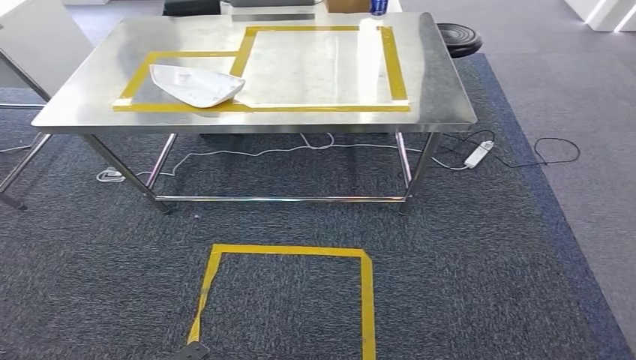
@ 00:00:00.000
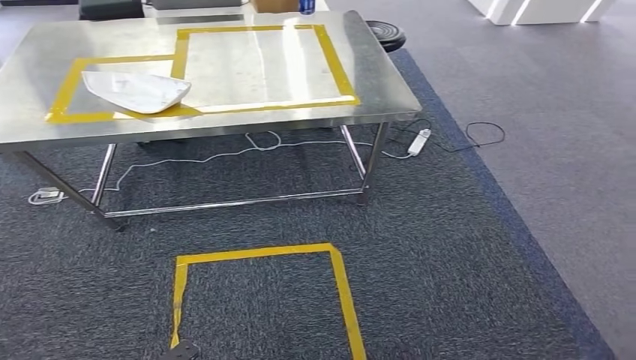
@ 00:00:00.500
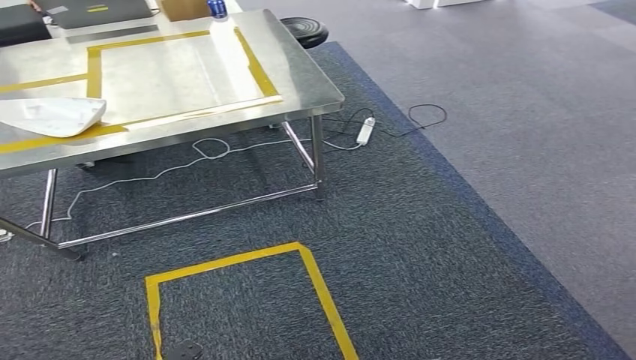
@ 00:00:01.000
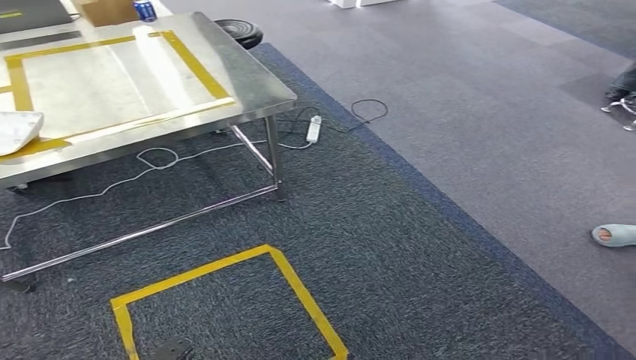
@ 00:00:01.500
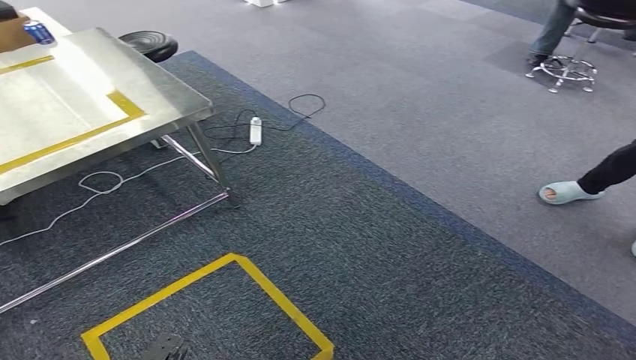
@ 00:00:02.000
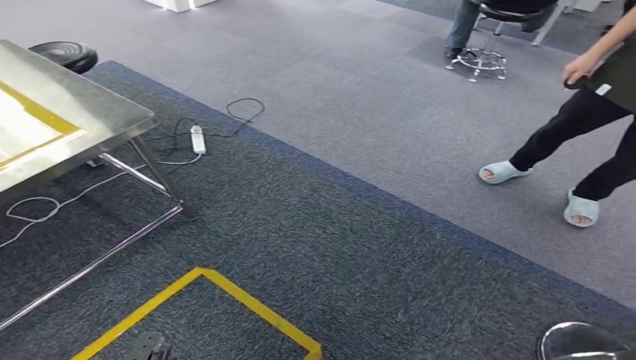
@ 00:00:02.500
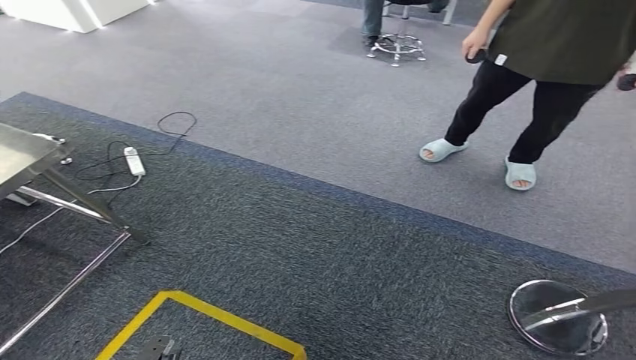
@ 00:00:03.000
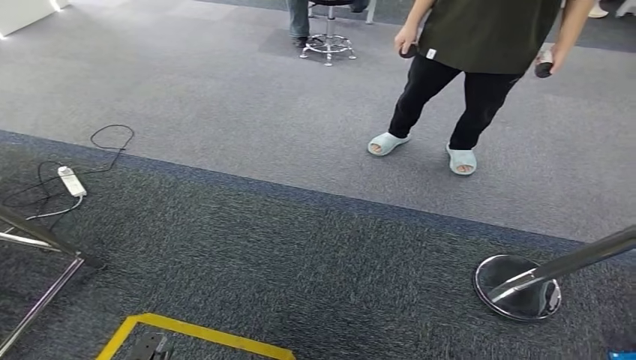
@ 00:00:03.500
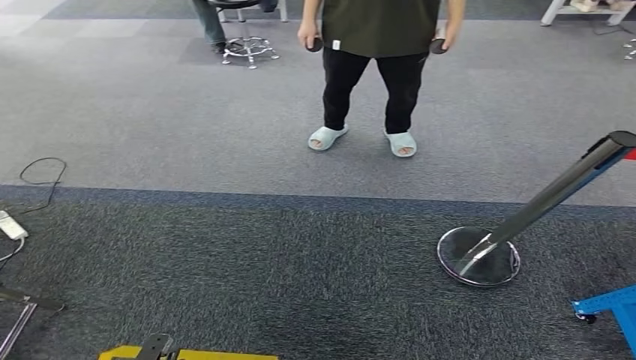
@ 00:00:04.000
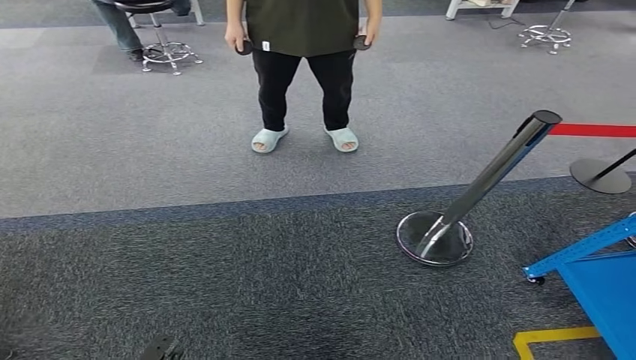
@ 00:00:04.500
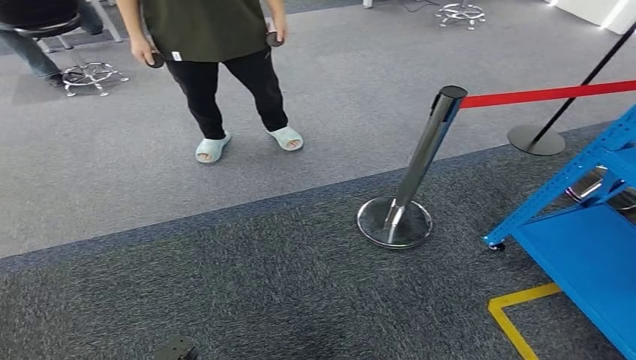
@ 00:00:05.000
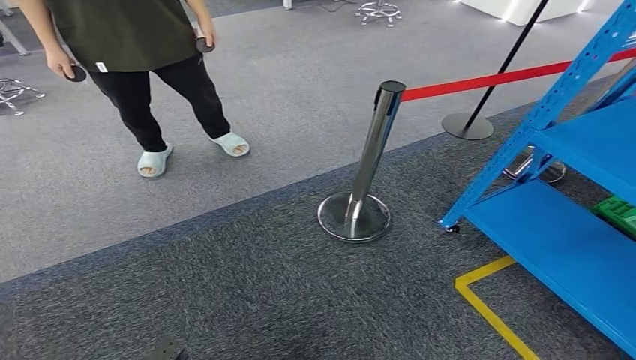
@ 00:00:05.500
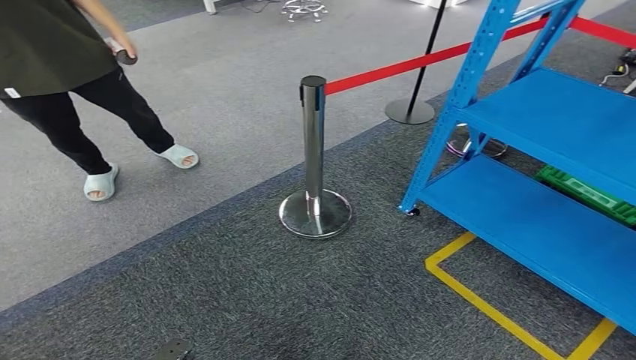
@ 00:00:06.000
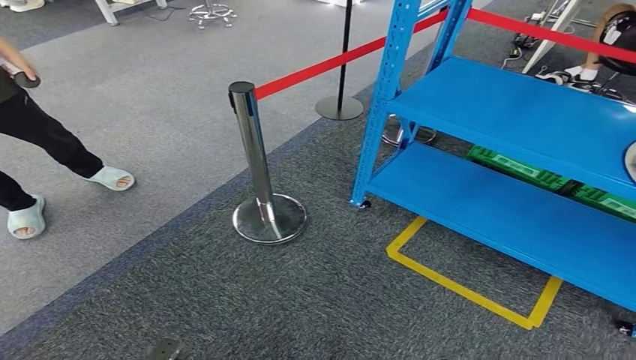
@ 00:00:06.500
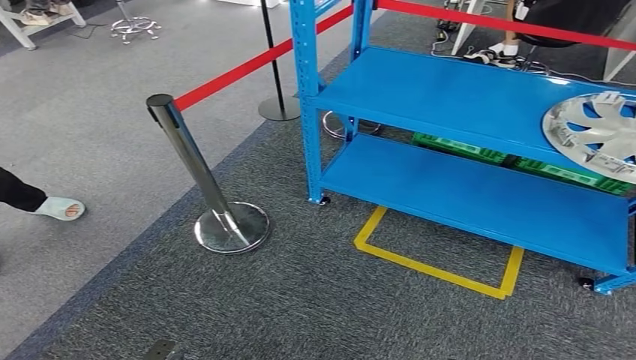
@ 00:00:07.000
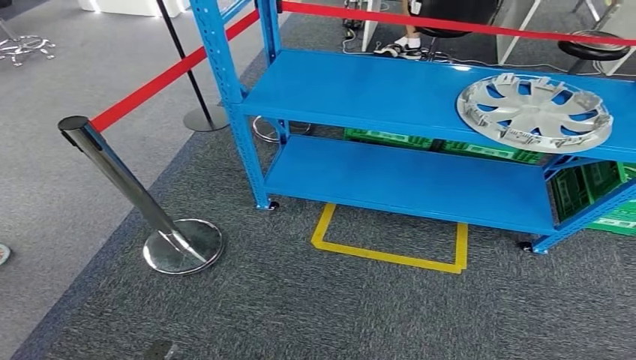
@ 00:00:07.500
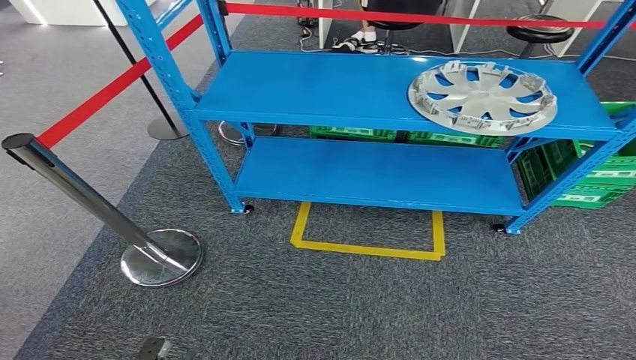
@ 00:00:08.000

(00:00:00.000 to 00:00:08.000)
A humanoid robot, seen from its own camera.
Step, 00:00:00.000 - 00:00:08.000: Return to the initial position at the workbench.
